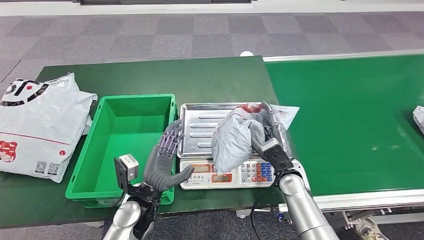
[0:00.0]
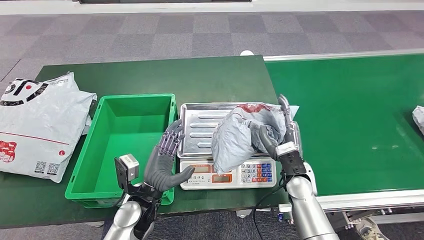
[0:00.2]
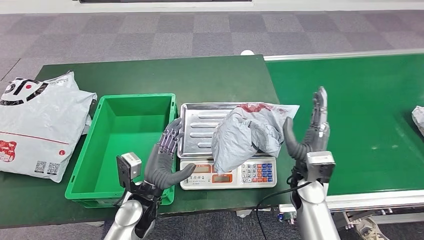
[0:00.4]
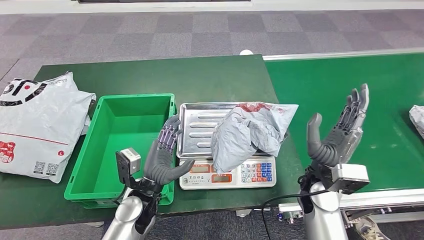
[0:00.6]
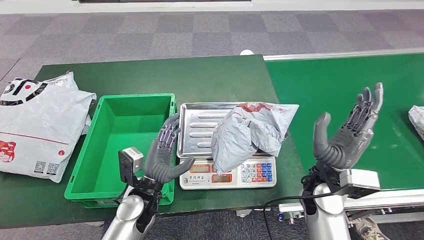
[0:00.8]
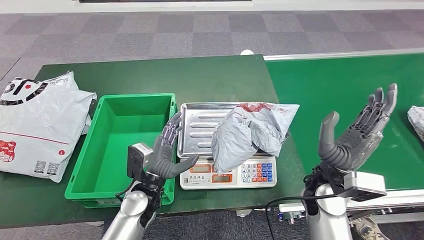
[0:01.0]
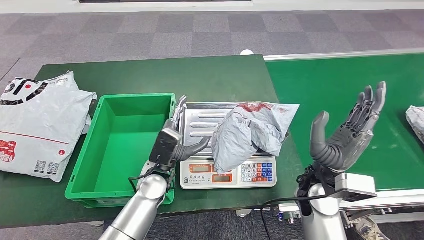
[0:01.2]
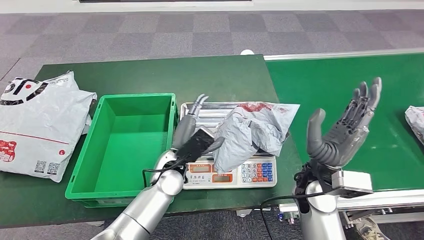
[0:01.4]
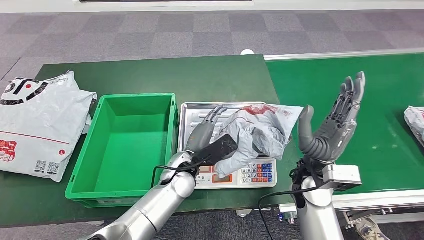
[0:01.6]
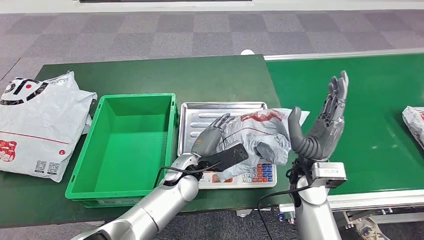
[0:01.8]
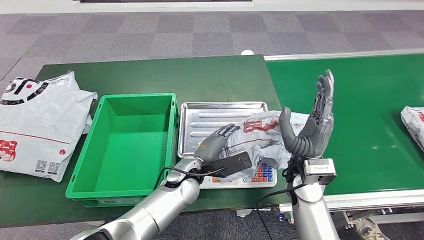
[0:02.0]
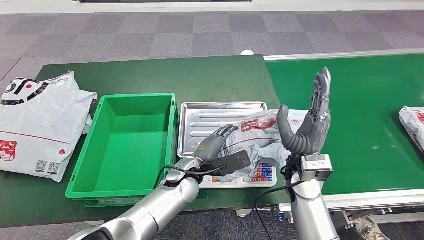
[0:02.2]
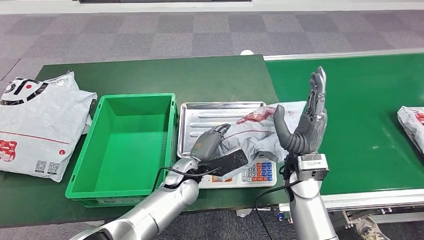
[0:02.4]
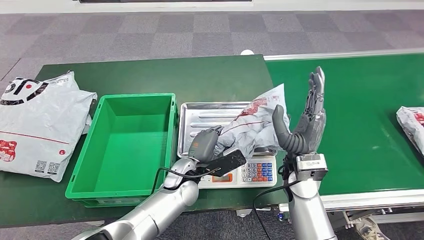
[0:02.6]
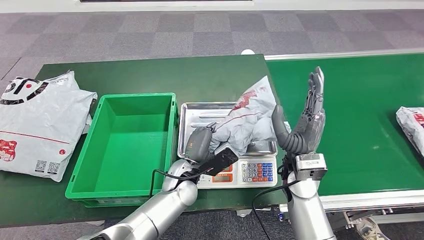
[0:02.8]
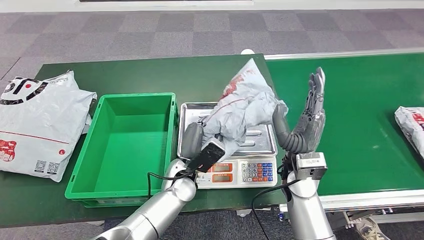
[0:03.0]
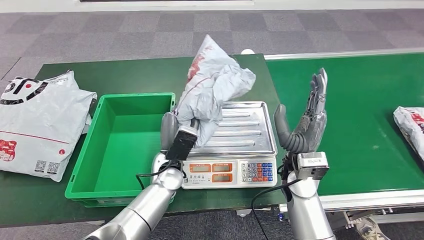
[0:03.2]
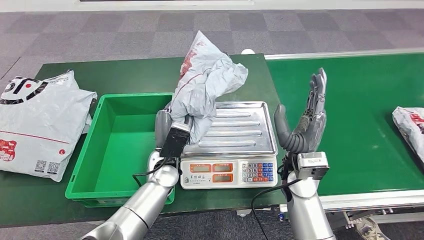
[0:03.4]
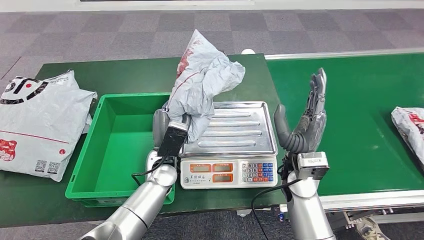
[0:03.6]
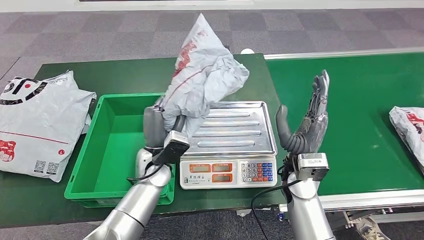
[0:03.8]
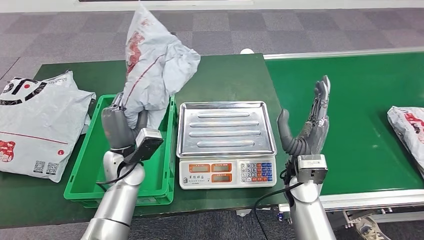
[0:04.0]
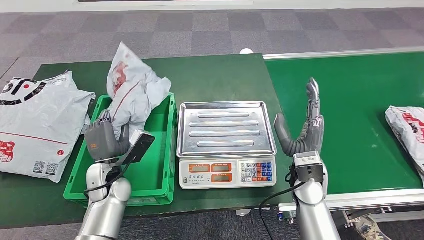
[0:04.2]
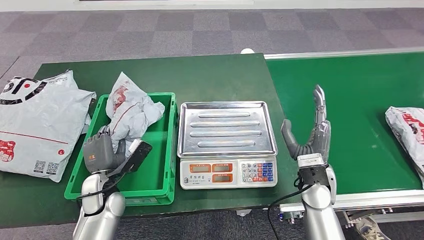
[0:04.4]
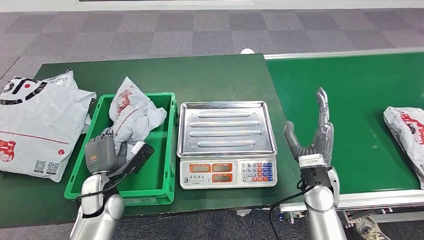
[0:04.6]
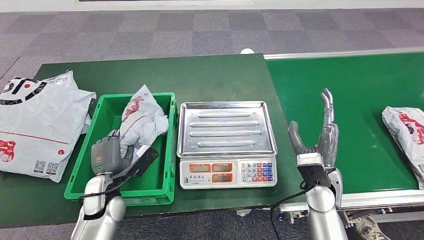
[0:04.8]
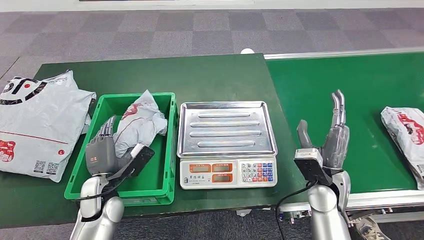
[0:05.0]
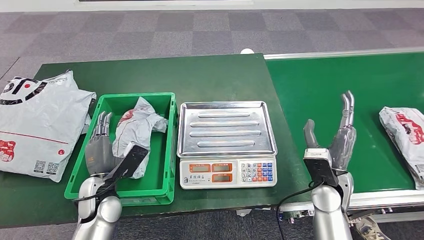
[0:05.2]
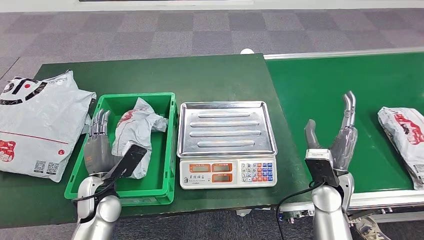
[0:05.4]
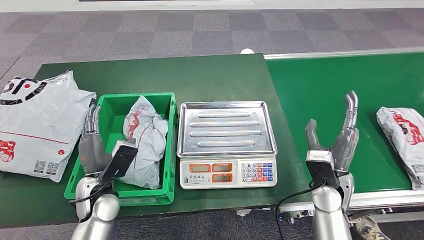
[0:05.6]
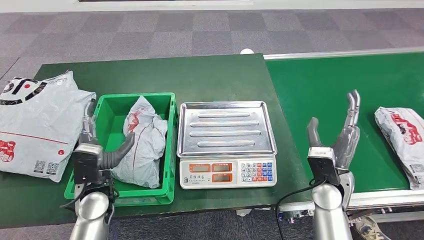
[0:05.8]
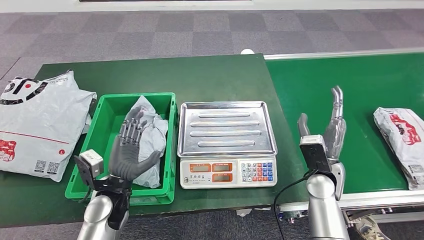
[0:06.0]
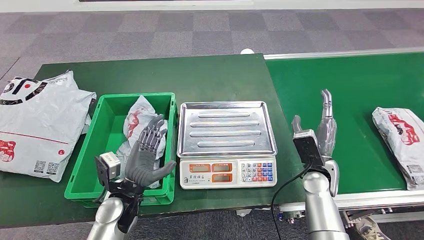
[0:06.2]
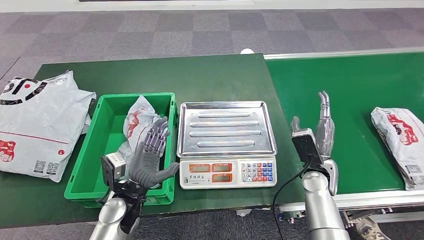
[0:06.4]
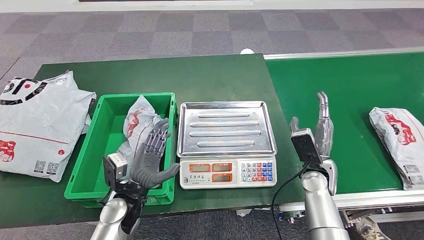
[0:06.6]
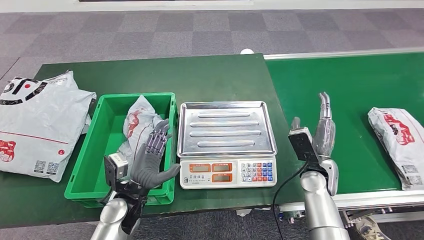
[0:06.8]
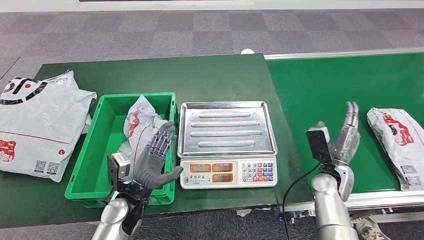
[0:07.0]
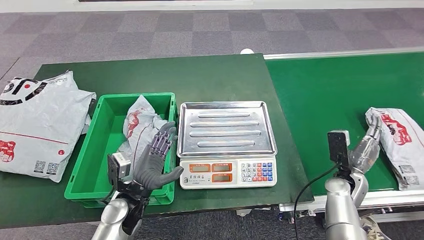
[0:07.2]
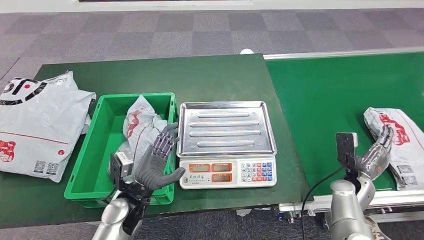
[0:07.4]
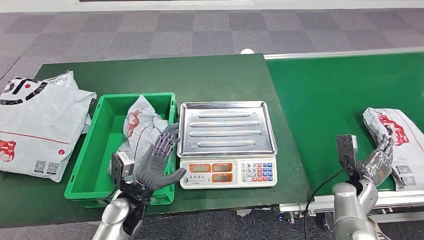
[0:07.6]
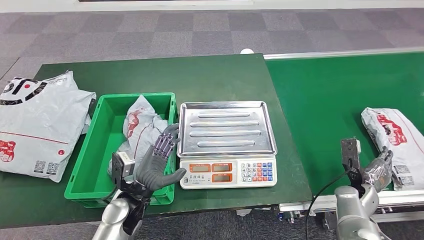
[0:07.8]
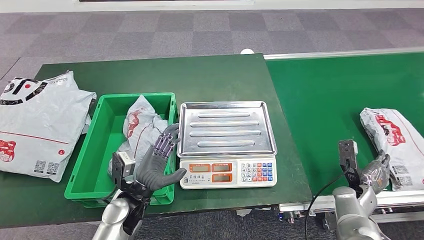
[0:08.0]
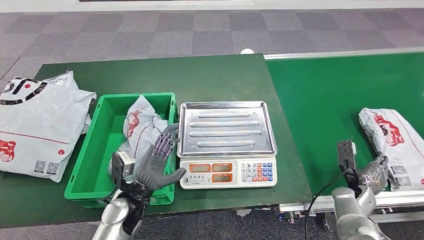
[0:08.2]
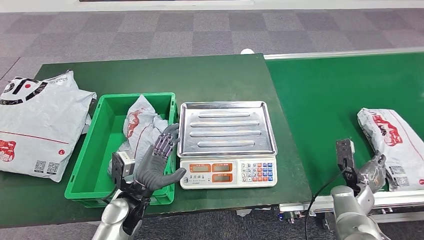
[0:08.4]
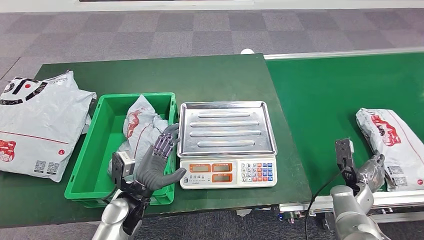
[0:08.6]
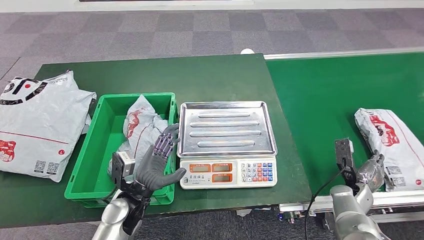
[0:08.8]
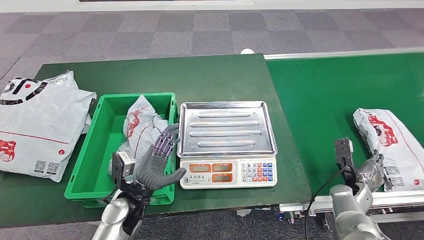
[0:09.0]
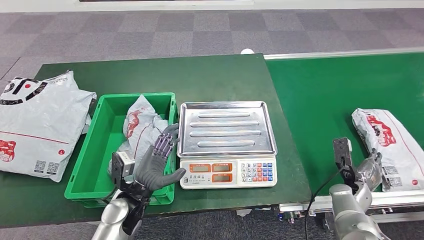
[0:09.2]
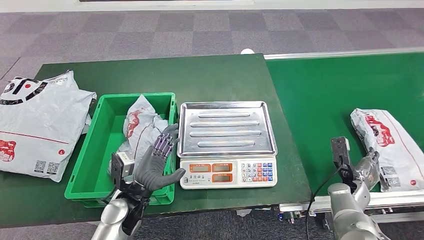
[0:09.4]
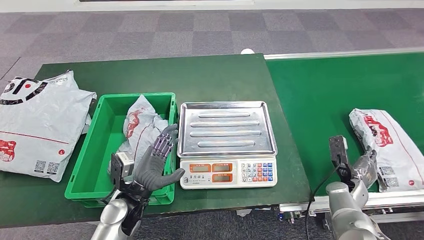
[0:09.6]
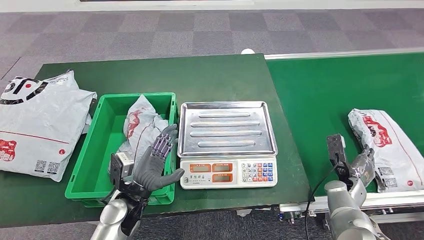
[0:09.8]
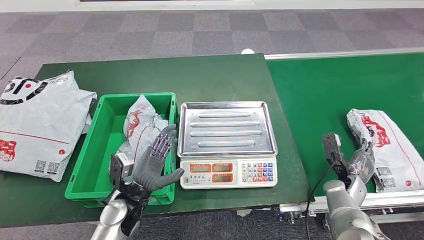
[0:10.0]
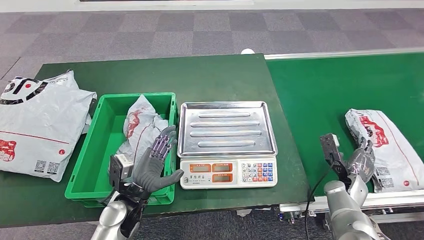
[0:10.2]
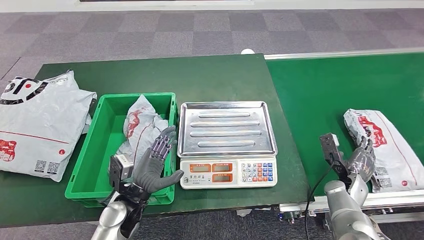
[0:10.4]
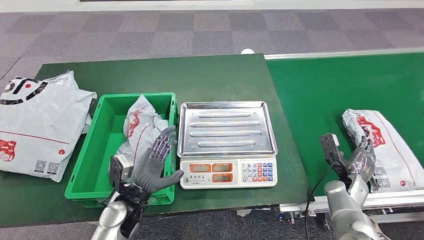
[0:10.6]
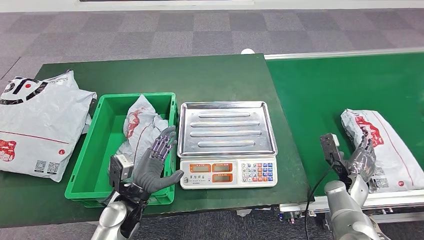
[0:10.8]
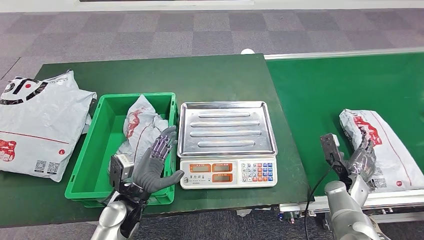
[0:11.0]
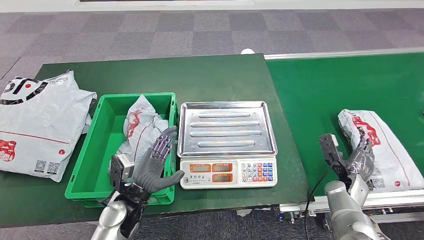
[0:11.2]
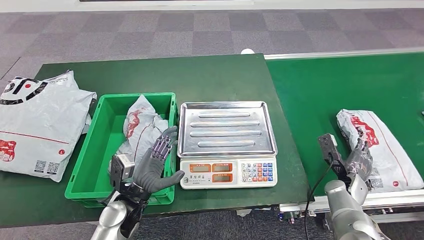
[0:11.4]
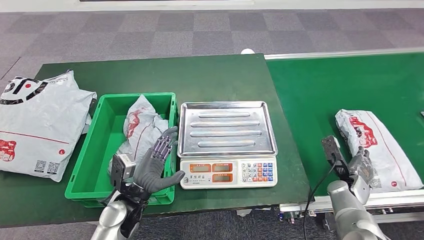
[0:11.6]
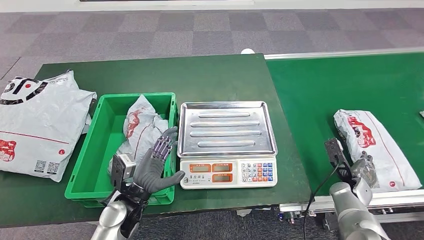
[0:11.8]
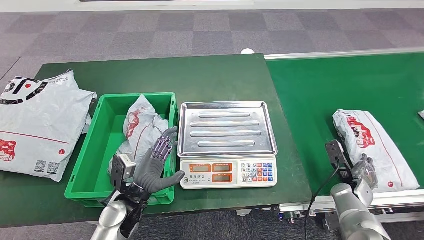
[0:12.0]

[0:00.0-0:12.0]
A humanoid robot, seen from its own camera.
Step, 0:00.0 to 0:02.0: Place the parcel onto the inbound machine.
Step, 0:02.2 to 0:03.8: Pick up the parcel from the inbound machine.
Step, 0:04.0 to 0:06.8: Put the parcel inside the courier box.
0:04.4 to 0:06.0: The left hand shifts by some 5 cm.
0:06.0 to 0:07.6: The right hand heads to the right and downward, covering approximately 15 cm.
0:07.6 to 0:10.4: There are only small adjustments of the hands.
0:10.4 to 0:12.0: The hands make only small movements.

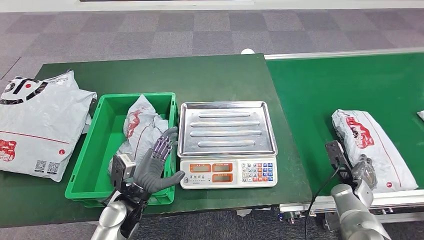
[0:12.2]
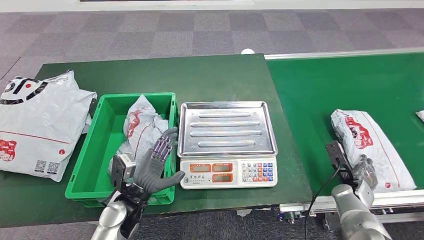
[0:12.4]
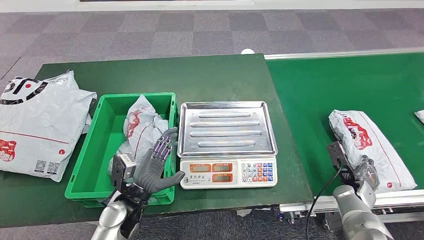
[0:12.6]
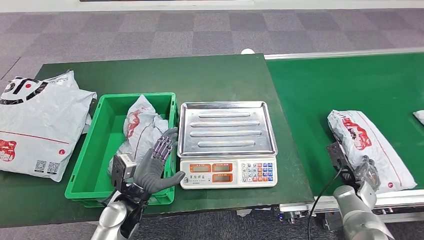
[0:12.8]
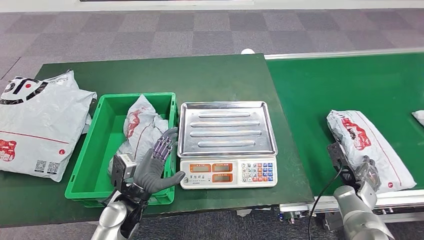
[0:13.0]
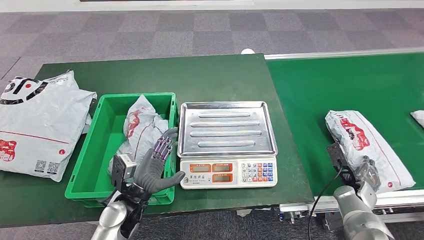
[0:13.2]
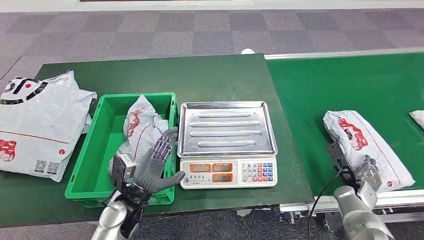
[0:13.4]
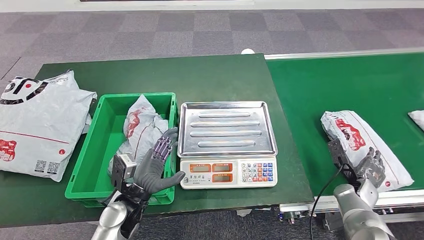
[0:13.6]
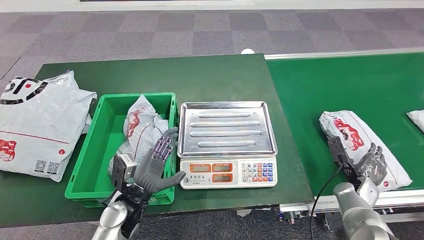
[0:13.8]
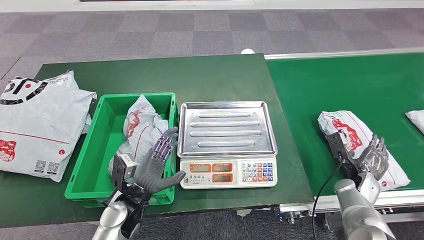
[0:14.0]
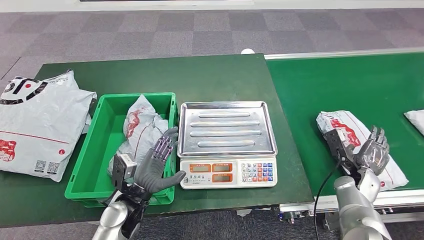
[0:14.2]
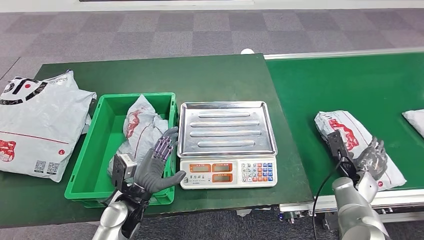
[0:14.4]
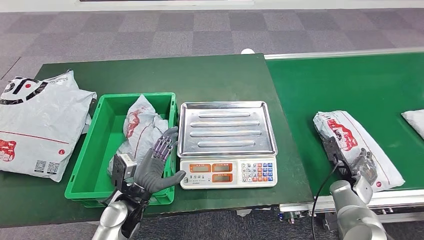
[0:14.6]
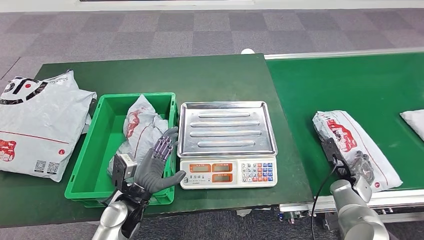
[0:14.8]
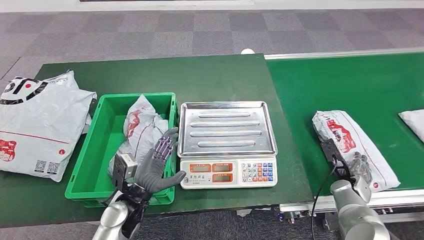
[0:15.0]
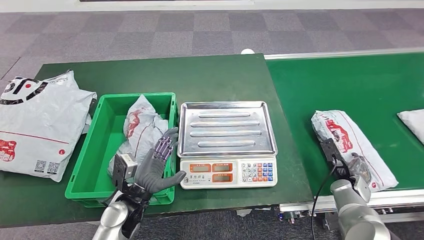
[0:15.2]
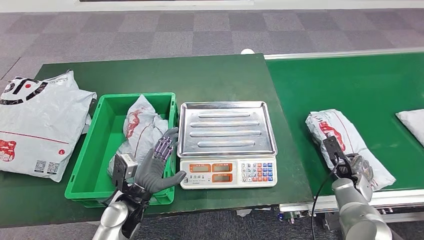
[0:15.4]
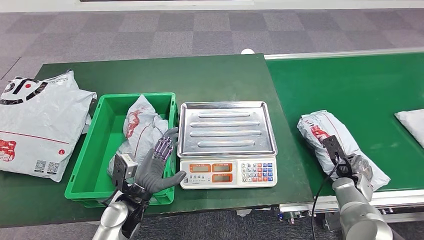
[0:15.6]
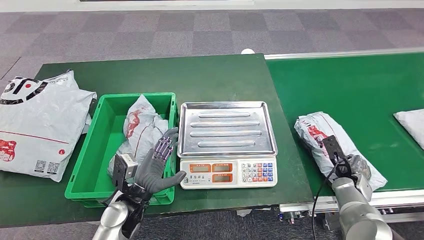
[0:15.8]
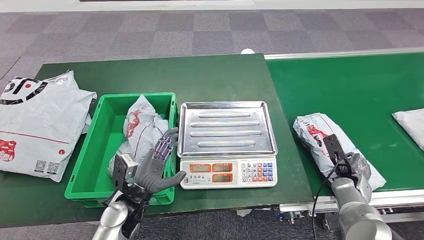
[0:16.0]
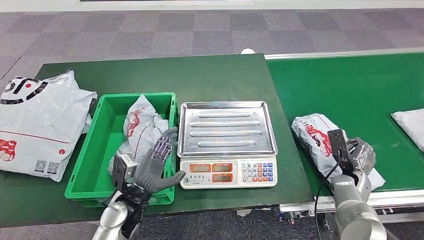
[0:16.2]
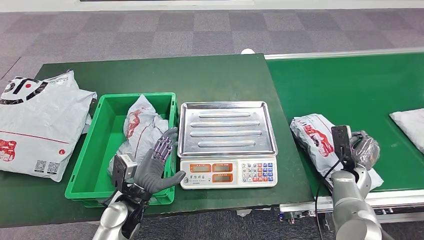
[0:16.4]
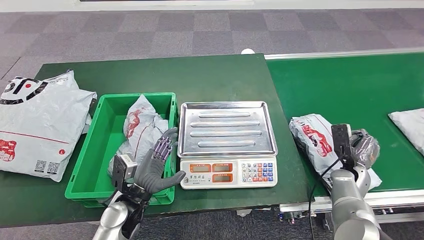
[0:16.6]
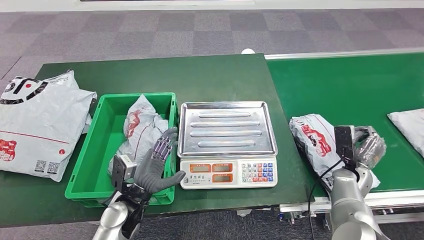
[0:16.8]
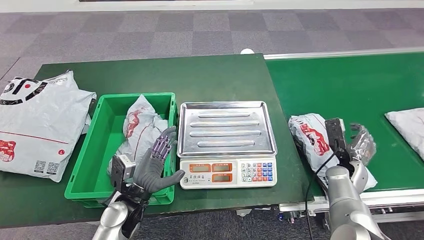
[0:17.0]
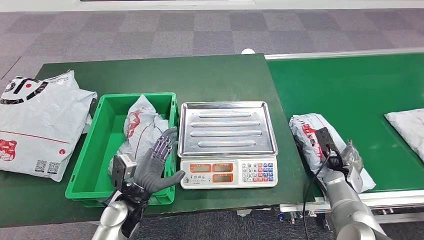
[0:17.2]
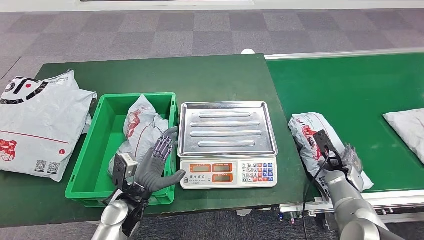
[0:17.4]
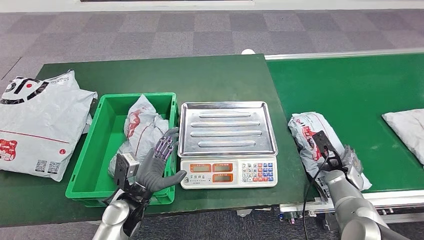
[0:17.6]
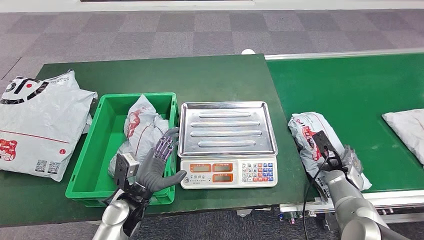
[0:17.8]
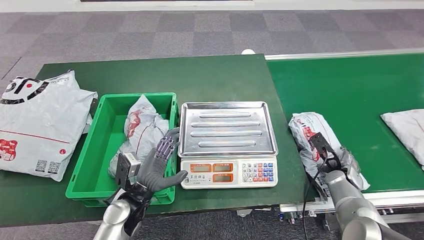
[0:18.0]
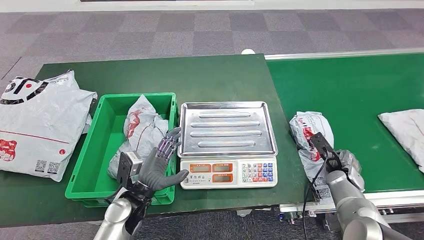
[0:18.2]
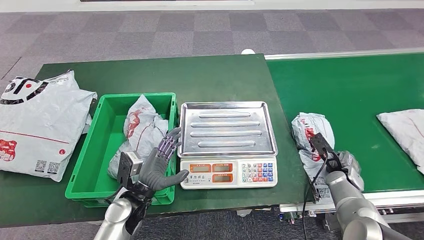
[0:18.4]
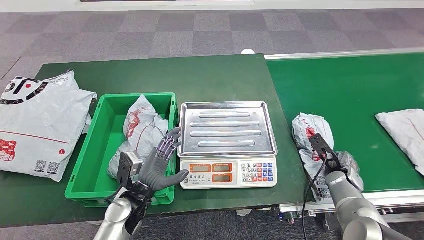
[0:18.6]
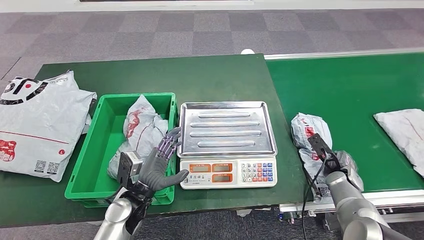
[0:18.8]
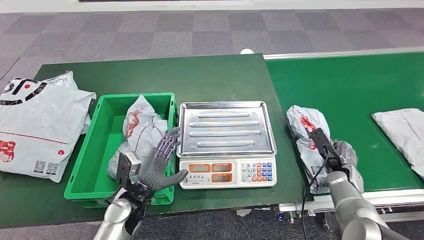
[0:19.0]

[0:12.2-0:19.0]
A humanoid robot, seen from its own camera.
0:12.2 to 0:13.6: The hands stay close to where they were, moving slightly.
0:13.6 to 0:15.0: The hands stay close to where they were, moving slightly.
0:17.6 to 0:19.0: There are only small adjustments of the hands.
